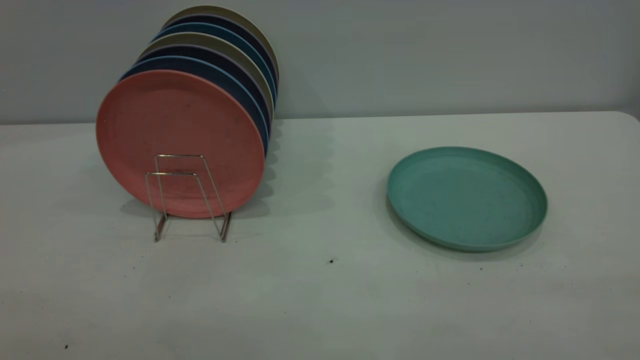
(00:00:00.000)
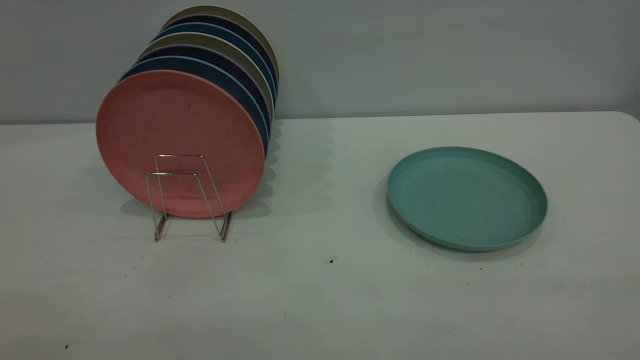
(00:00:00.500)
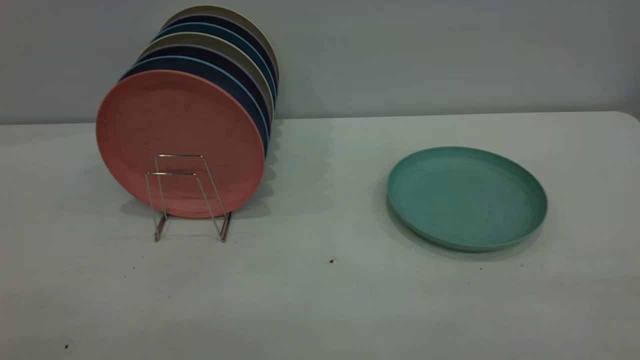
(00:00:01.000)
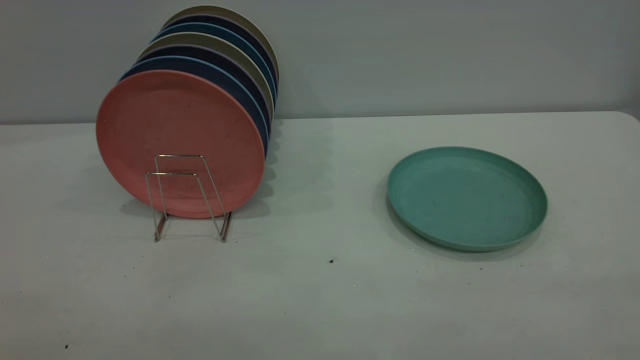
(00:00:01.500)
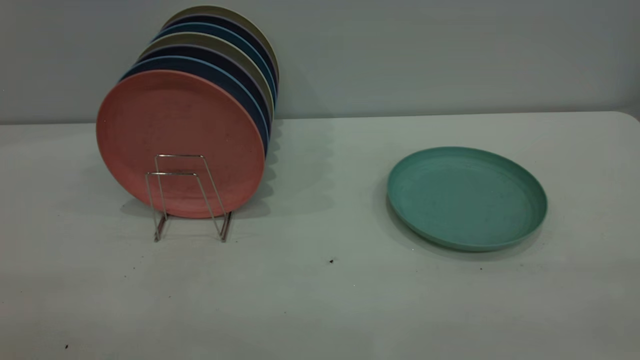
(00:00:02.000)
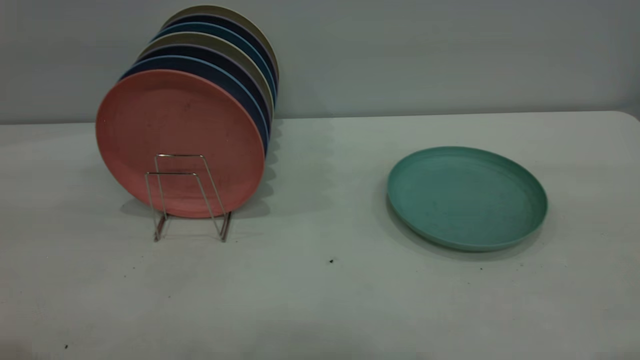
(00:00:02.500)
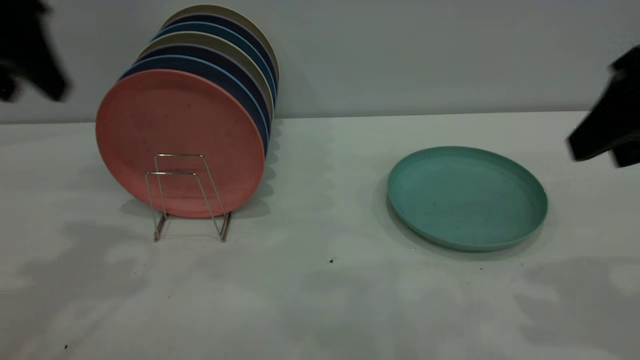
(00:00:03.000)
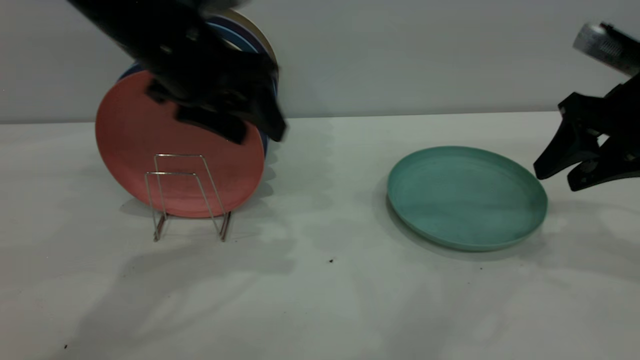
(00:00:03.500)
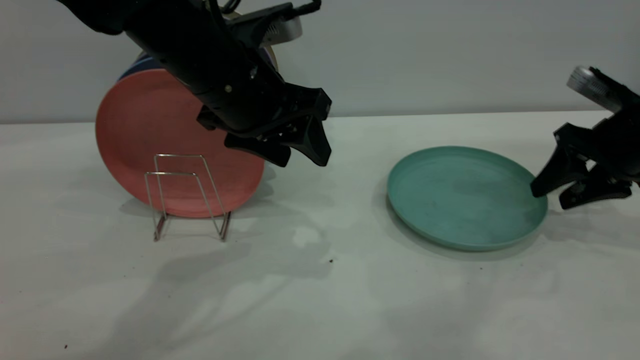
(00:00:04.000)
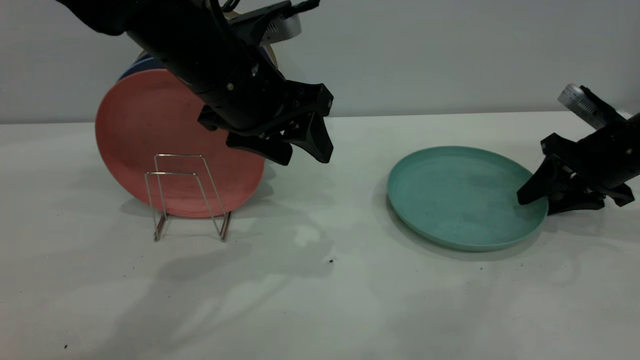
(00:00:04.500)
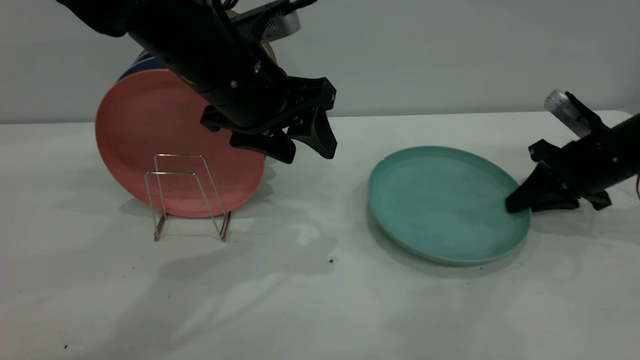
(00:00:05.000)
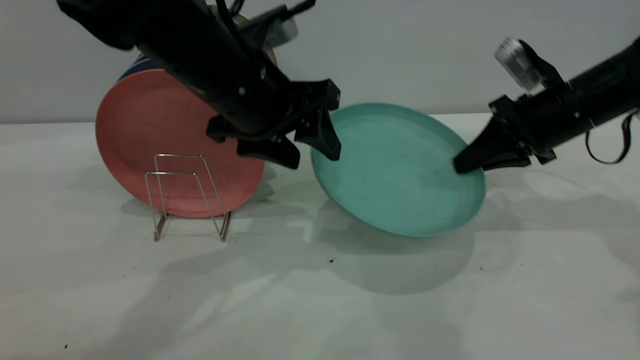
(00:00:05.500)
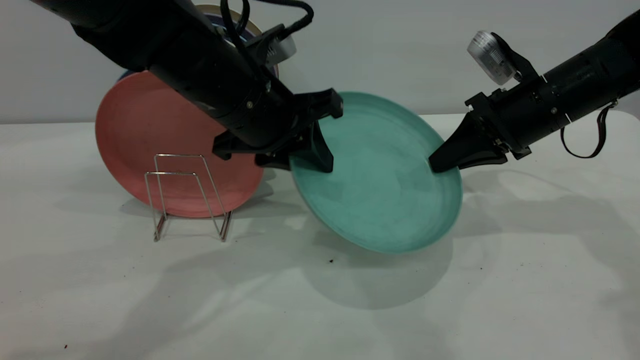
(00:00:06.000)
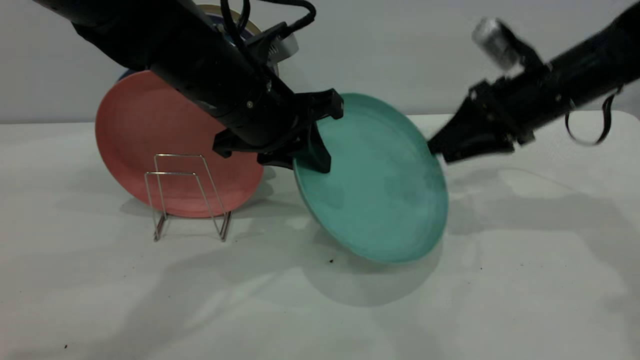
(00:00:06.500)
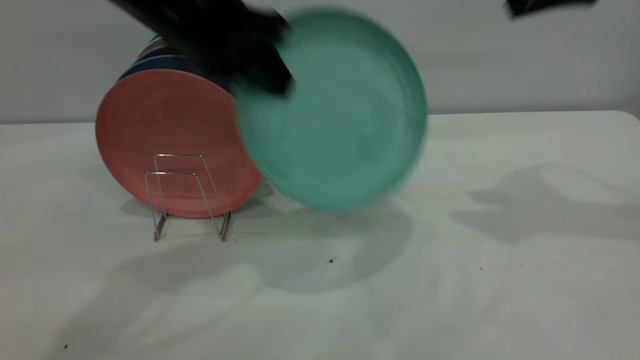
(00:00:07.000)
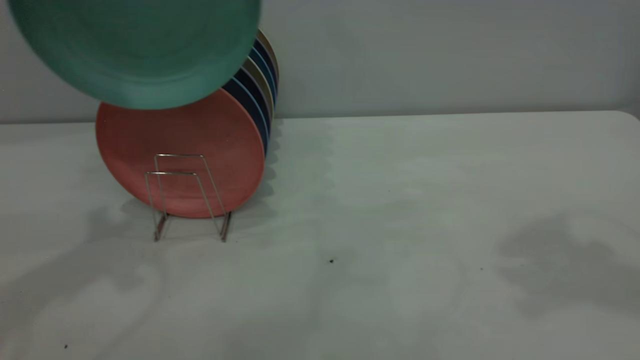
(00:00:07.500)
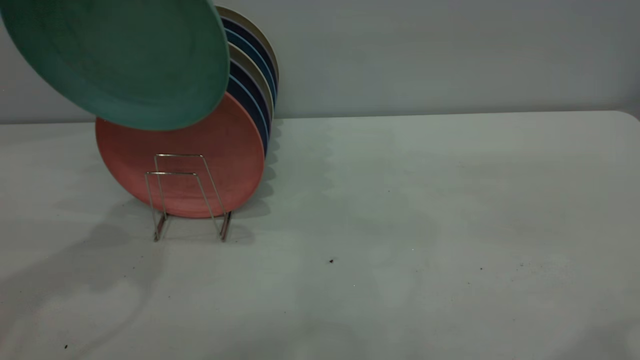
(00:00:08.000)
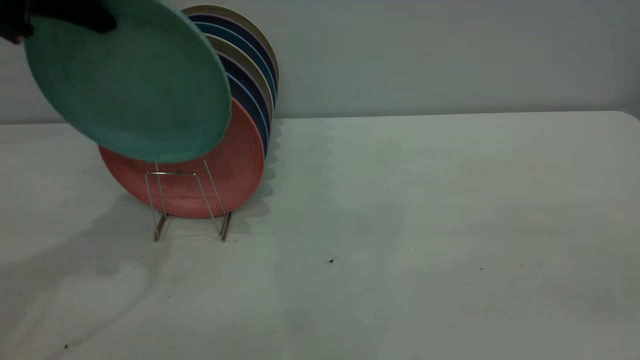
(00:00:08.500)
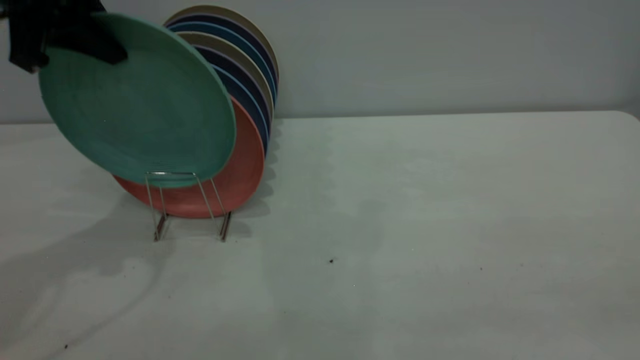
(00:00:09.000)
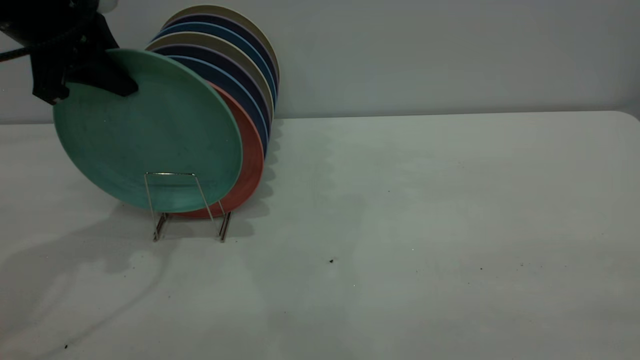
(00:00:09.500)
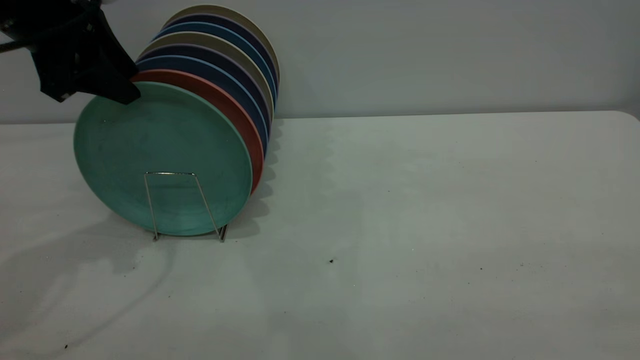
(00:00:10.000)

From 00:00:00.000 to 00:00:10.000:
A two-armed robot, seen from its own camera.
Task of the whole recording: the right gripper grasp the green plate, the right gripper pass the green plate to the left gripper, and the left gripper place the green plate on the plate rack.
Step, from 00:00:00.000 to 00:00:05.000: Pick up the plate with the right gripper.
Step, from 00:00:05.500 to 00:00:06.500: Pass the plate from the right gripper to the left gripper.
From 00:00:02.000 to 00:00:04.000: The right gripper goes roughly 50 cm forward and downward; the left gripper goes approximately 40 cm forward and to the right.
From 00:00:04.000 to 00:00:06.000: The right gripper goes about 10 cm to the left, and closes its fingers, while the left gripper closes its fingers.
From 00:00:06.000 to 00:00:08.000: The left gripper is displaced upward and to the left by roughly 25 cm, while the right gripper heads backward and upward, covering roughly 35 cm, and opens up.
From 00:00:08.000 to 00:00:10.000: The left gripper is displaced downward by about 10 cm, and opens up.

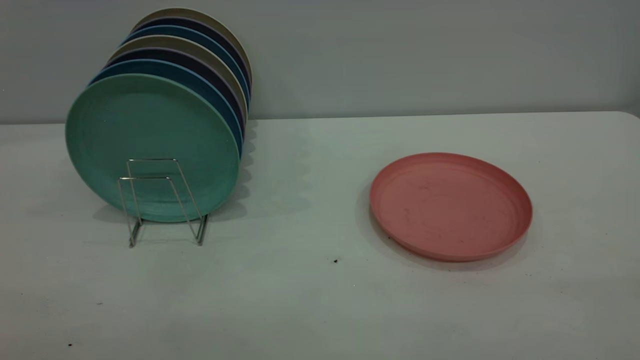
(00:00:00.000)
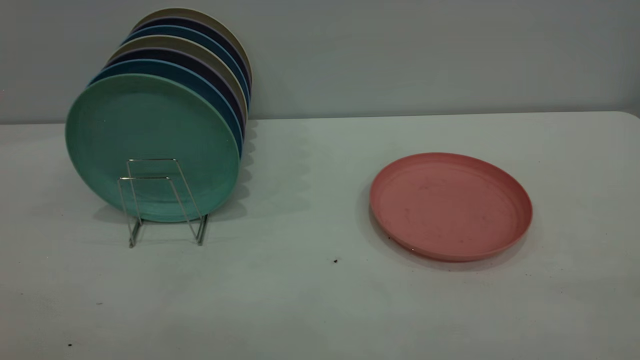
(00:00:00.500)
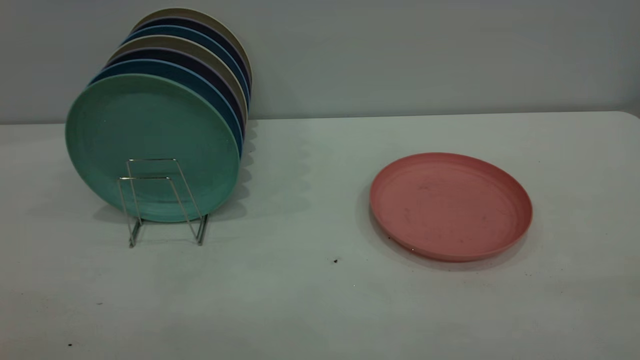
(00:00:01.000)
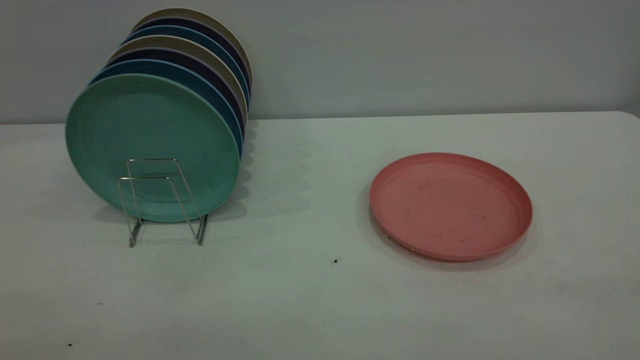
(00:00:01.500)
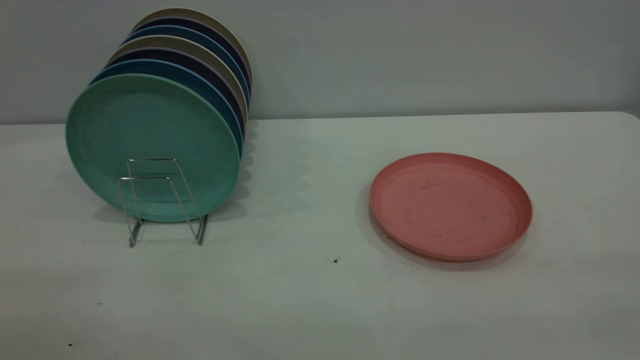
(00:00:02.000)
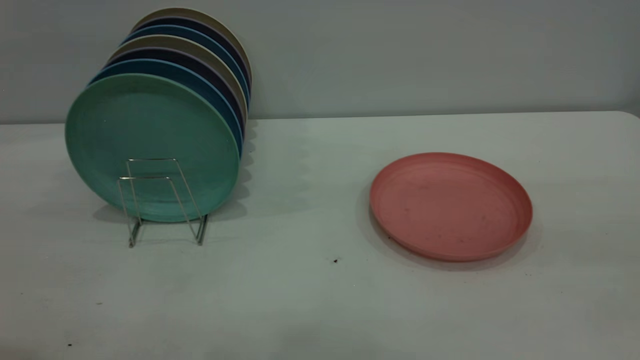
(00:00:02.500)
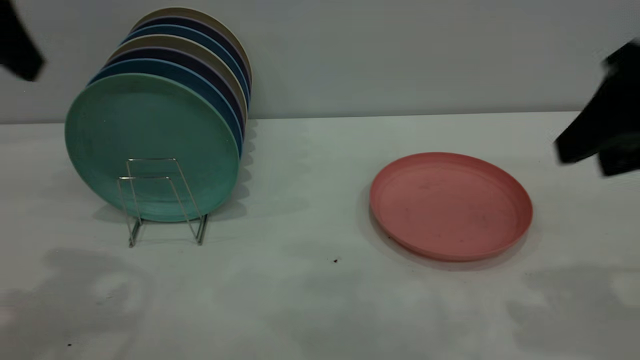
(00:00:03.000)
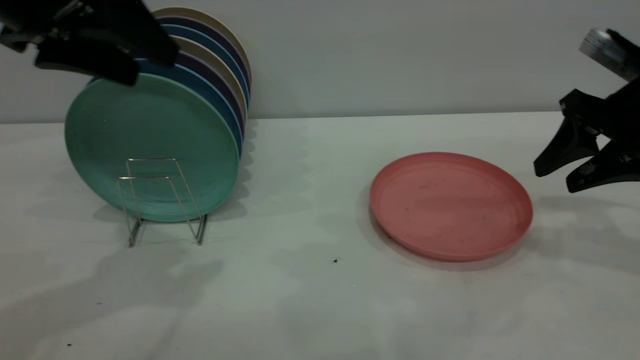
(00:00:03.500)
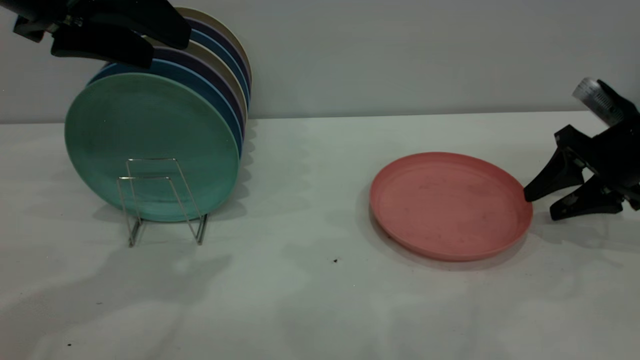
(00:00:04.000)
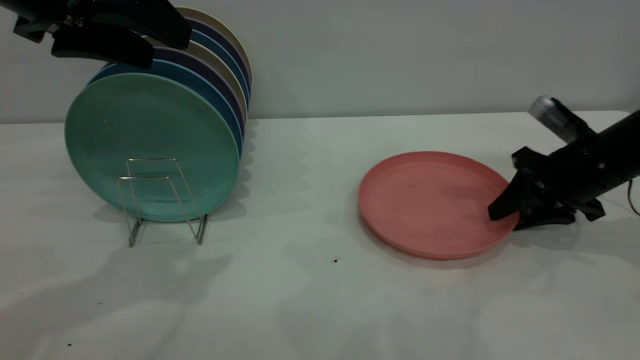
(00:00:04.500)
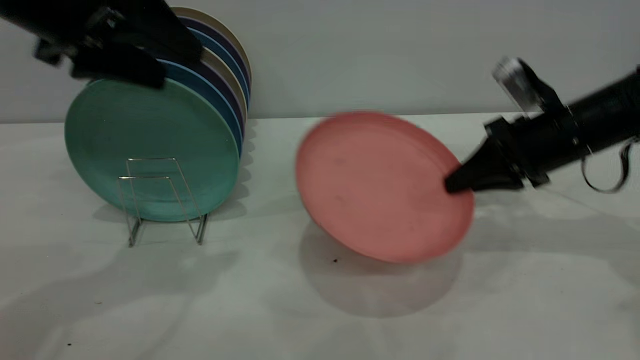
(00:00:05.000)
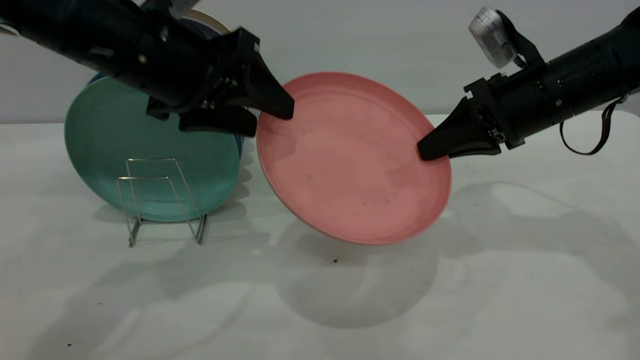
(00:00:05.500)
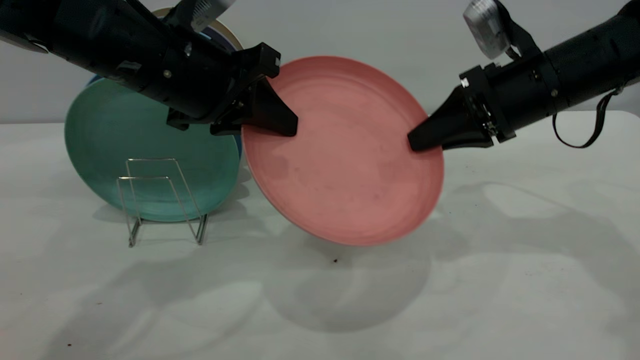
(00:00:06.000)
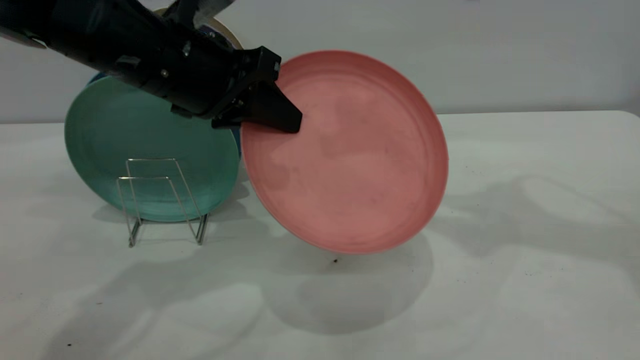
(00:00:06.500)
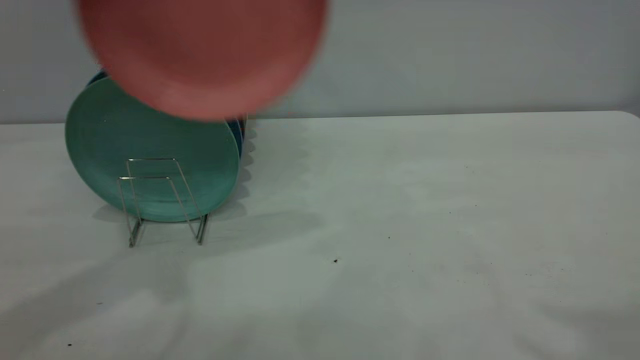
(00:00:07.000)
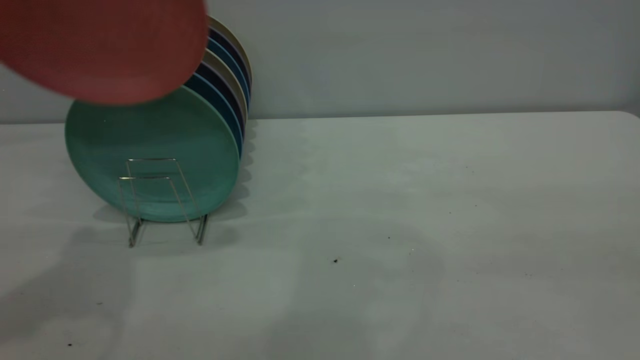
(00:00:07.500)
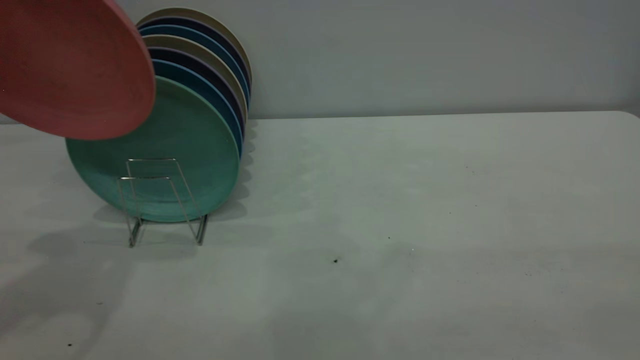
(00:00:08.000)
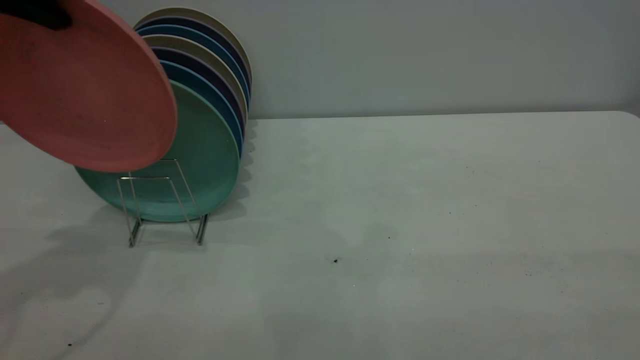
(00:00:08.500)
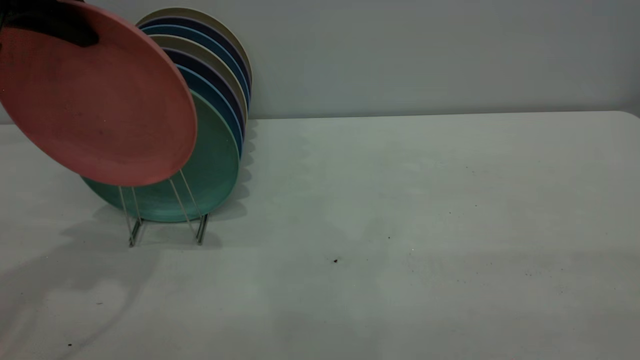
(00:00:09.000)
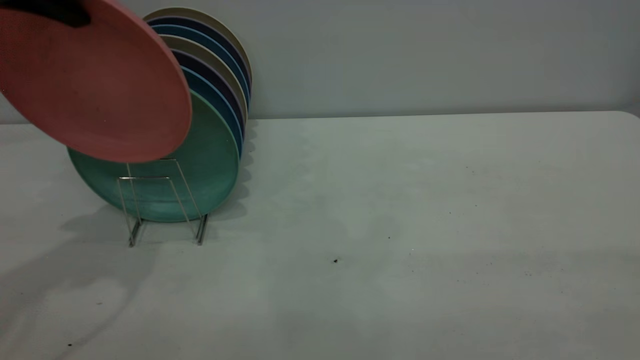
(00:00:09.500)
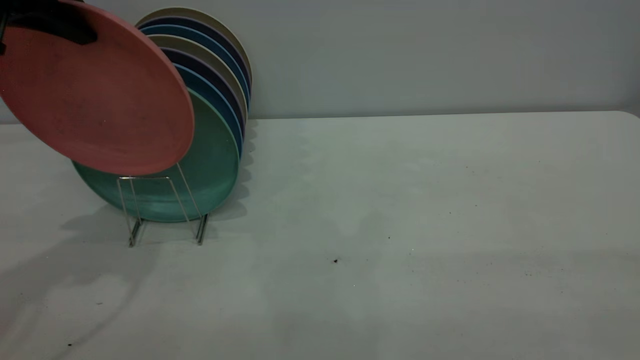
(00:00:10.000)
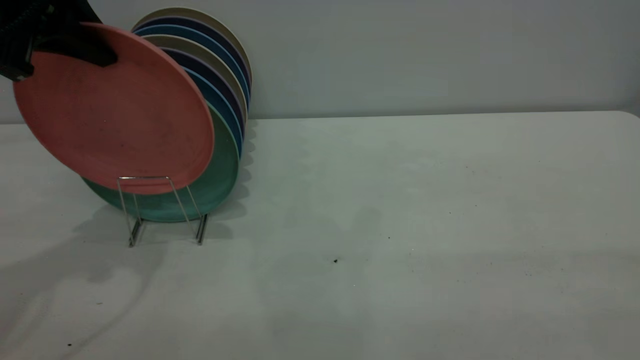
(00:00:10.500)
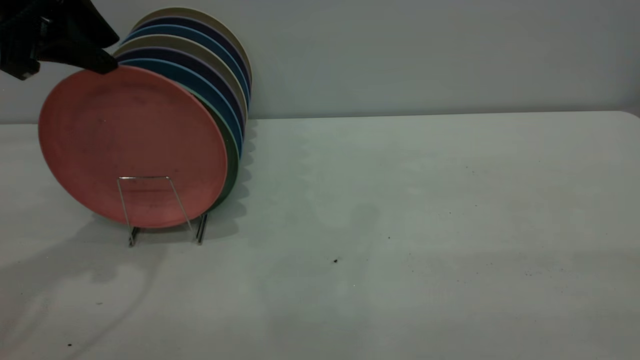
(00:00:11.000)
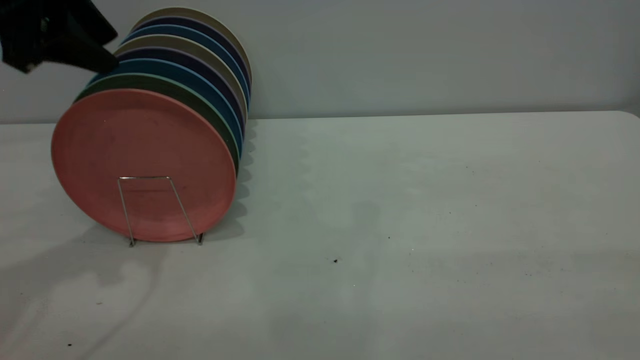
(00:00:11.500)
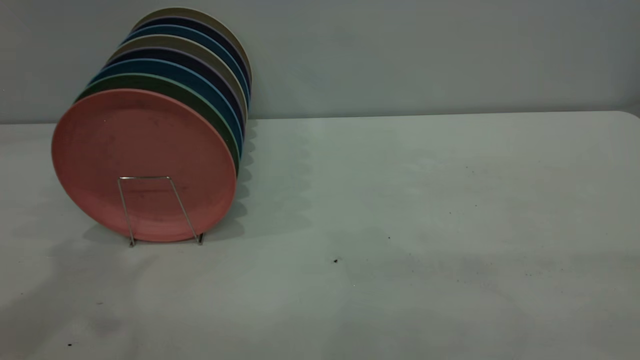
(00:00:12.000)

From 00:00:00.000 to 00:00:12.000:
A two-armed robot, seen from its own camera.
Task of the whole recording: the right gripper grasp the pink plate, the right gripper pass the pink plate to the left gripper, and the left gripper place the pink plate on the plate rack.
Step, from 00:00:00.000 to 00:00:05.000: Pick up the plate with the right gripper.
Step, from 00:00:05.500 to 00:00:06.000: Pass the plate from the right gripper to the left gripper.
Step, from 00:00:06.500 to 00:00:11.500: Place the plate on the shelf.
From 00:00:02.000 to 00:00:04.000: The right gripper travels forward and downward by about 50 cm. Meanwhile the left gripper shifts approximately 30 cm forward.
From 00:00:04.000 to 00:00:06.000: The right gripper shifts roughly 15 cm to the left and upward, and closes up. The left gripper goes roughly 10 cm downward and to the right, and closes its fingers.
From 00:00:06.000 to 00:00:08.000: The left gripper goes approximately 20 cm upward and to the left, while the right gripper travels backward and upward by approximately 40 cm, and opens its fingers.
From 00:00:08.000 to 00:00:10.000: The left gripper moves some 5 cm.
From 00:00:10.000 to 00:00:12.000: The left gripper travels upward and backward by about 15 cm, and opens up.
